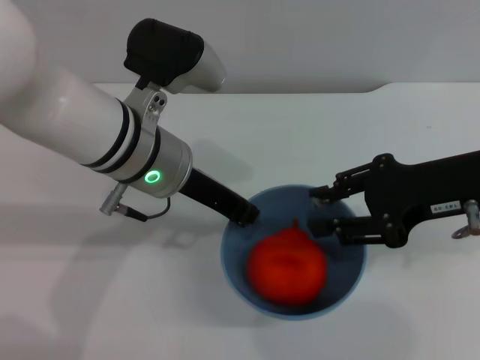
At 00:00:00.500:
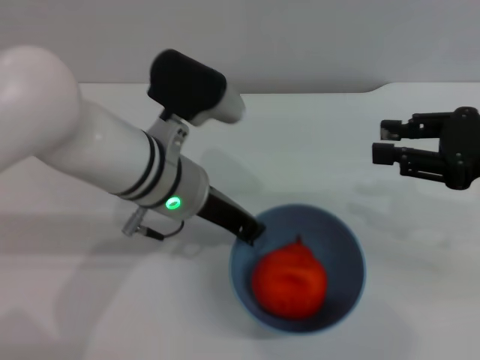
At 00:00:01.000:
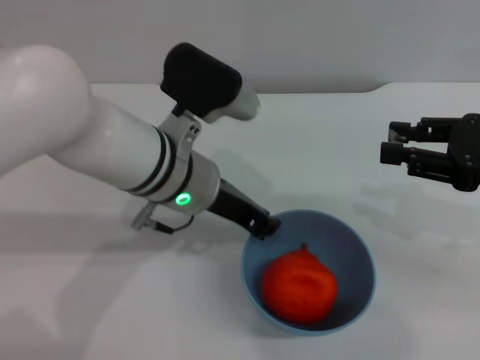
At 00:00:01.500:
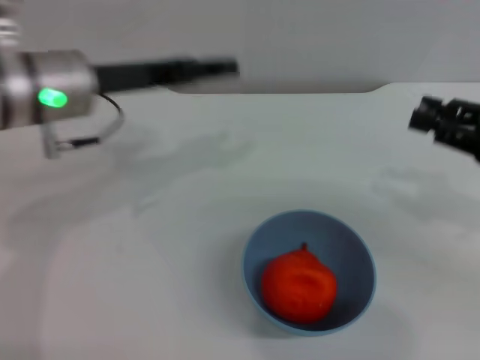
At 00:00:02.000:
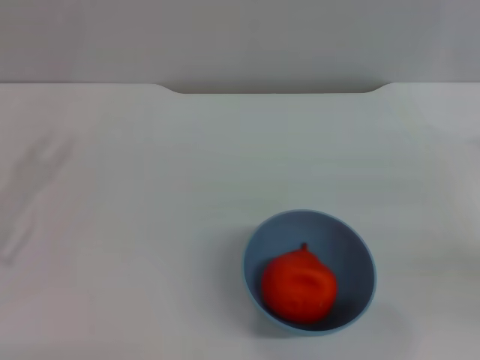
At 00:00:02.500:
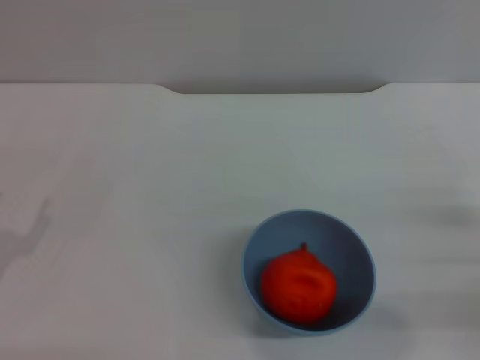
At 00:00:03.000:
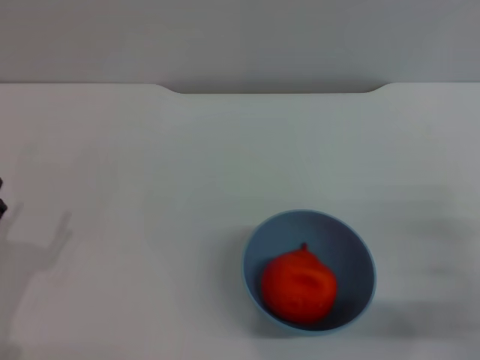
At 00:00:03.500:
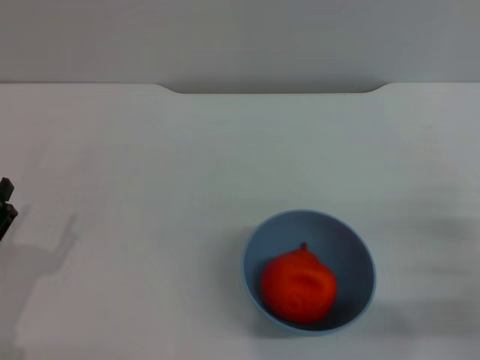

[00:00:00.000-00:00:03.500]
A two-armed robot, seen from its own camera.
Task of the whole recording: put the orange into the blue bowl and pour it out repeatedly.
Step, 00:00:00.500 to 00:00:01.000: Place the bowl on the table.
00:00:00.000 to 00:00:02.000: The left gripper is displaced to the left by roughly 25 cm, and opens, while the right gripper is displaced to the right and downward by some 15 cm.
00:00:02.000 to 00:00:03.500: The left gripper moves downward and backward, roughly 15 cm; the right gripper moves downward and to the left, roughly 10 cm.
